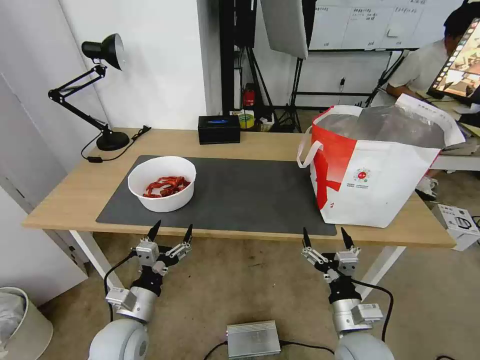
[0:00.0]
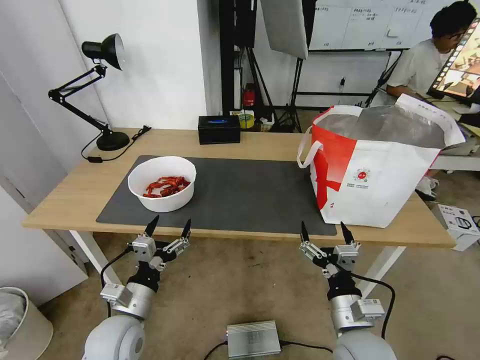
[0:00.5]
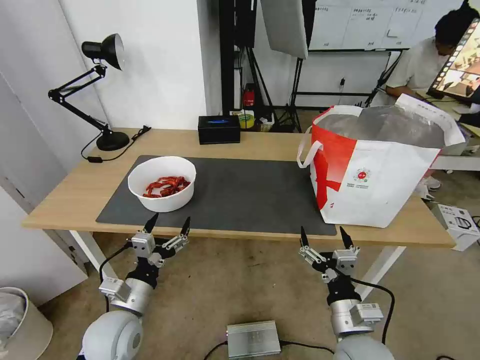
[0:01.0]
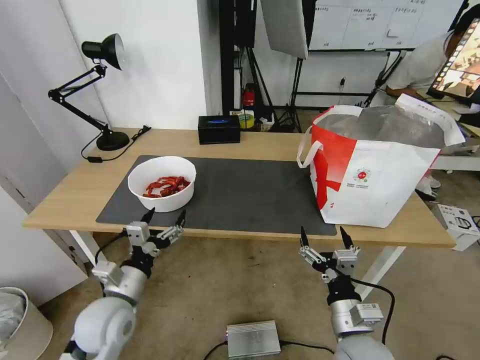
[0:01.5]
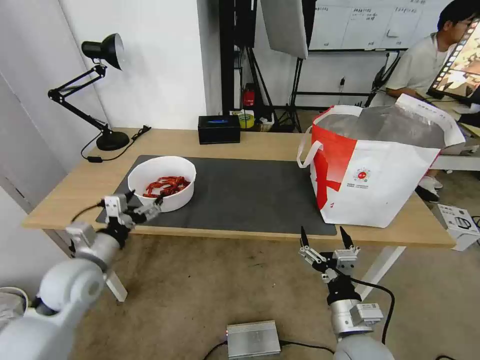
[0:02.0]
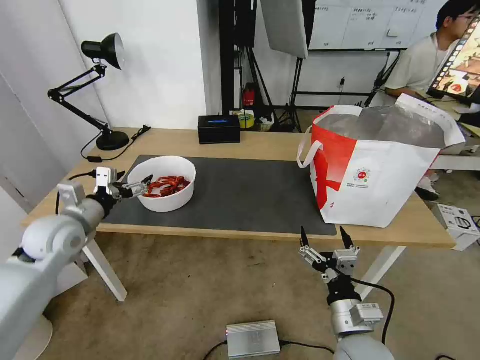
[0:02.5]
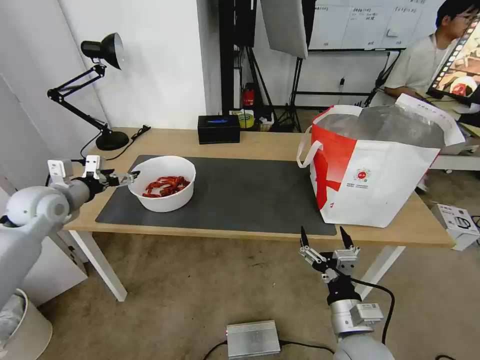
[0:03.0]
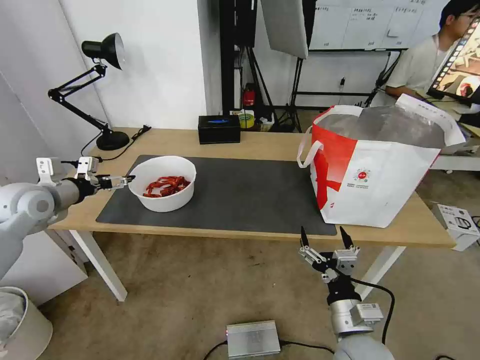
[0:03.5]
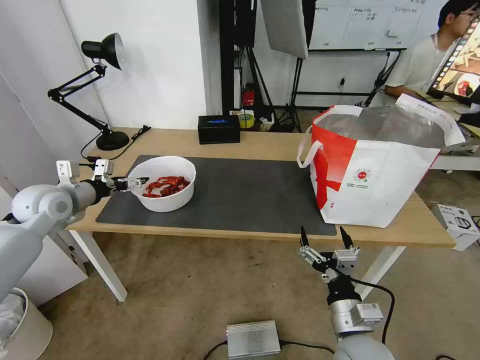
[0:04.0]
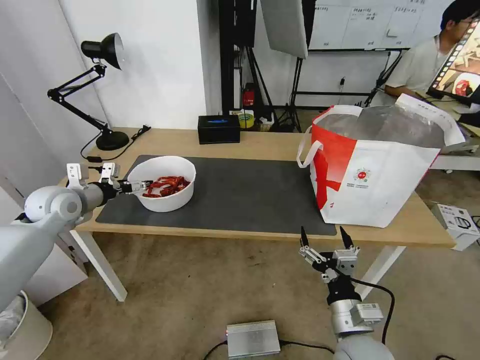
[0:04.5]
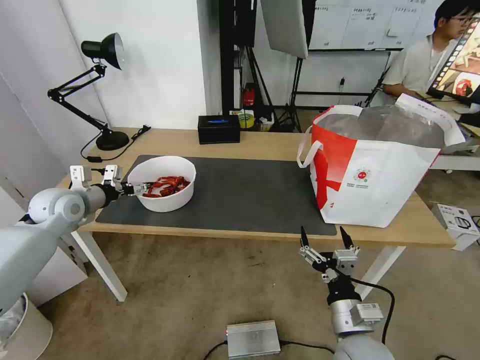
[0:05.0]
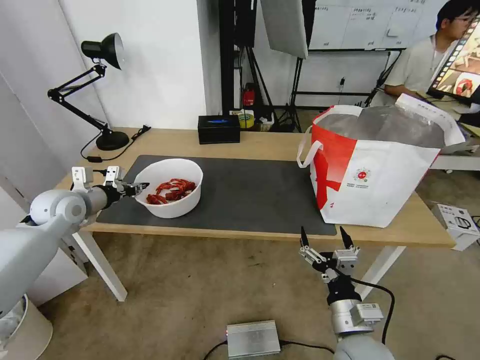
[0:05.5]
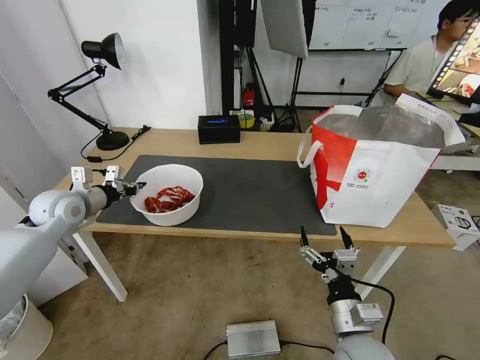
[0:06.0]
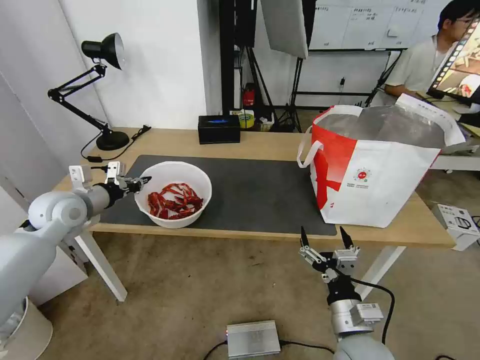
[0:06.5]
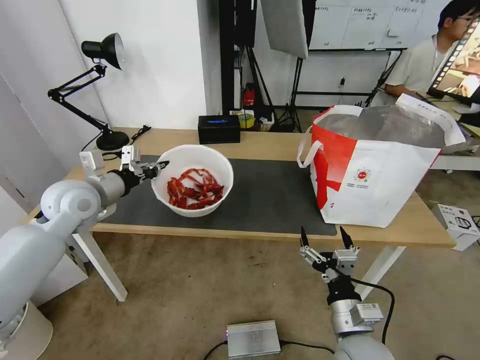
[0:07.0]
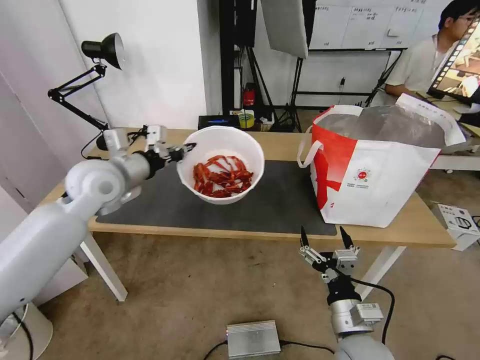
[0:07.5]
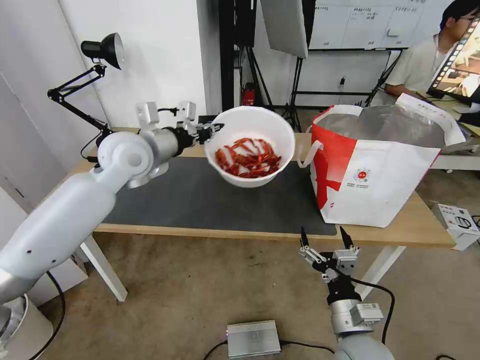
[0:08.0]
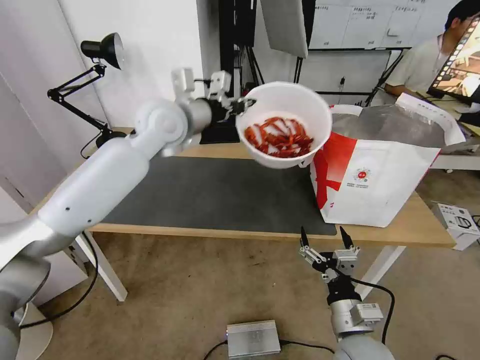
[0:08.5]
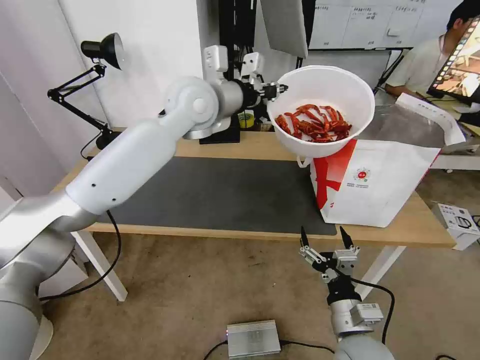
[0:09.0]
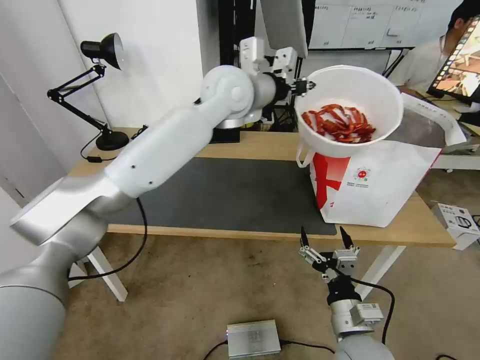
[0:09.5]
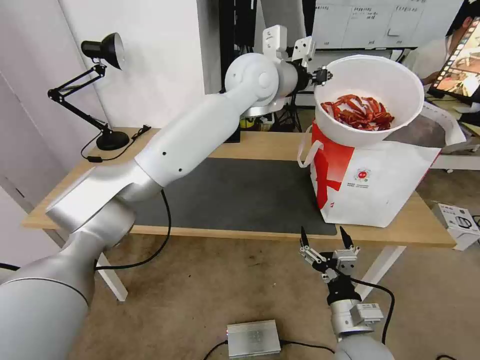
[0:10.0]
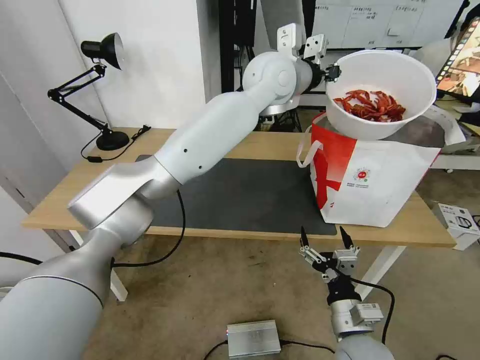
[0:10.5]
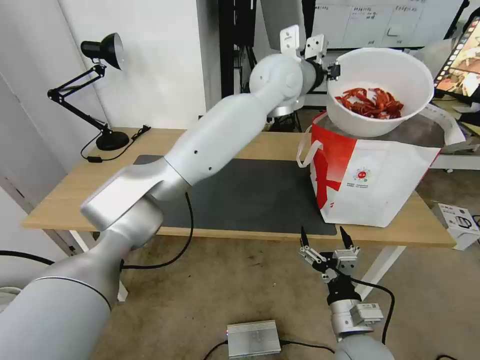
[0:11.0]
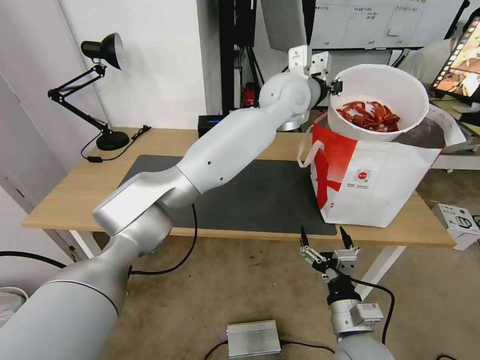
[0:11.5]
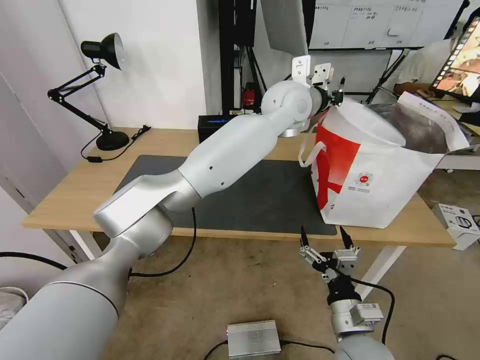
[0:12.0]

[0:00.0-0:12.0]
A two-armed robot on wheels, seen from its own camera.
Task of the whole recording: Pick up the trash from the table and place it into the takeout bag.
0:00.0 to 0:02.0: The left gripper travels upward, to the left and forward by about 15 cm.
0:02.0 to 0:04.0: The left gripper goes about 20 cm forward, to the left and upward.
0:04.0 to 0:06.0: The left gripper closes its fingers.
0:06.0 to 0:08.0: The left gripper moves to the right and upward, approximately 25 cm.
0:08.0 to 0:10.0: The left gripper heads to the right and upward, covering about 25 cm.
0:10.0 to 0:12.0: The left gripper shifts about 5 cm to the right.

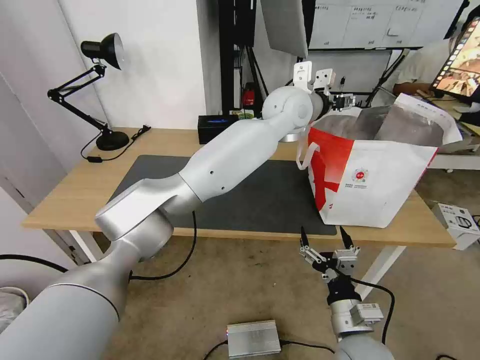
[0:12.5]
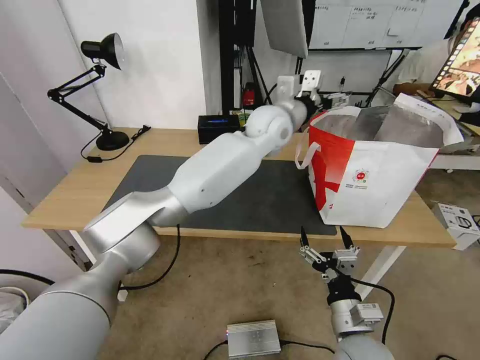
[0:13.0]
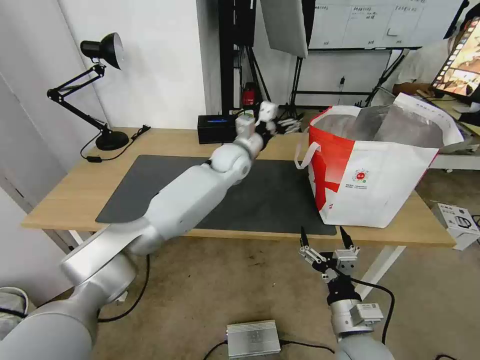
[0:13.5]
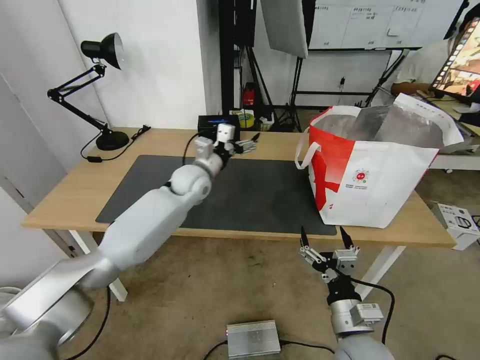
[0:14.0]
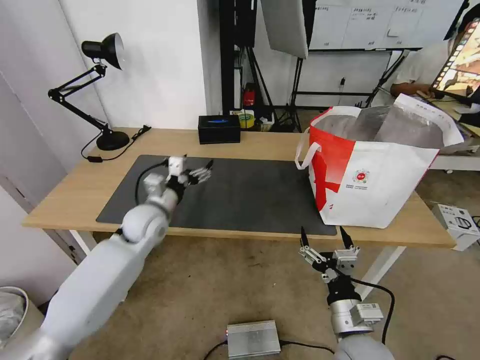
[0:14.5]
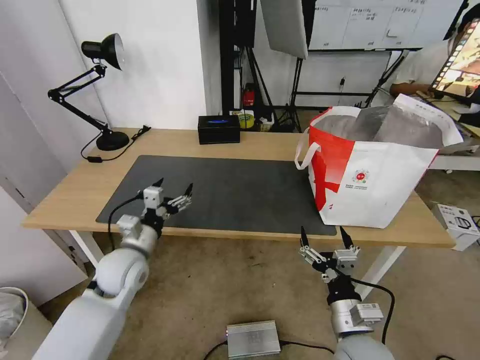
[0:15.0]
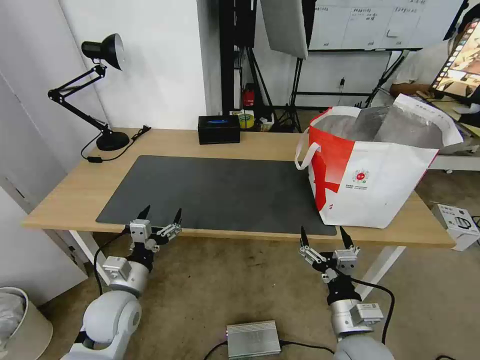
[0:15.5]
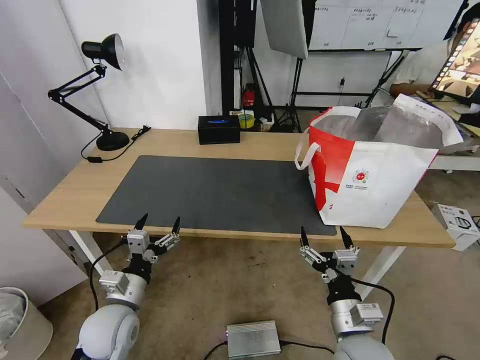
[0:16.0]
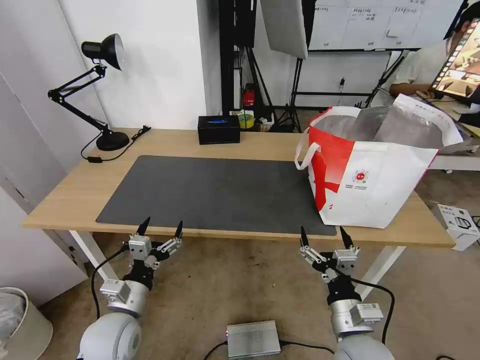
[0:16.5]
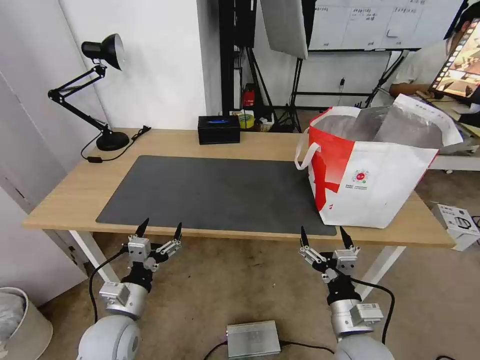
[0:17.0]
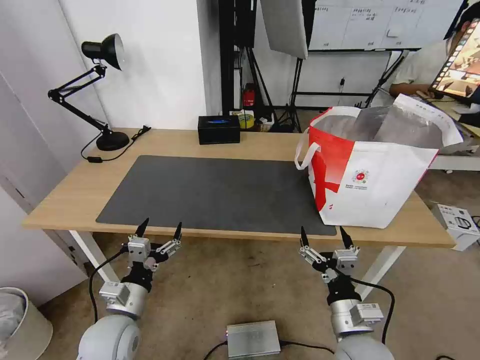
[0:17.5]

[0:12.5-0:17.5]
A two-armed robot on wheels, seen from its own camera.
Task of the whole recording: Pick up the trash from the table and place it into the takeout bag.
0:12.5 to 0:15.0: The left gripper travels to the left, downward and backward by roughly 50 cm.
0:15.0 to 0:17.5: The left gripper heads backward and downward, covering approximately 15 cm.
